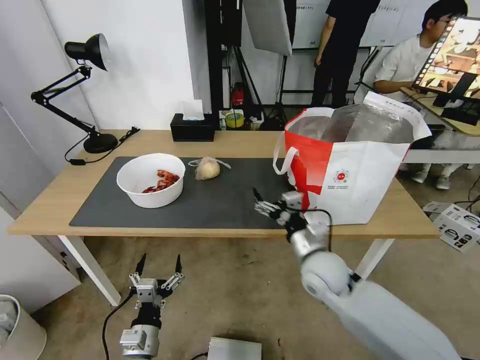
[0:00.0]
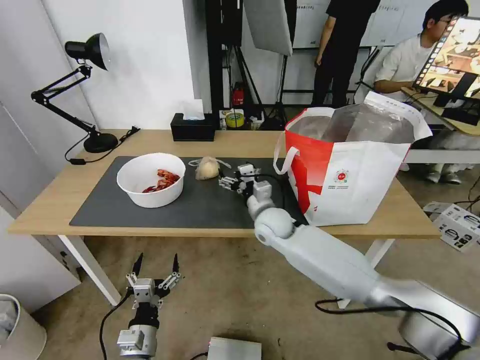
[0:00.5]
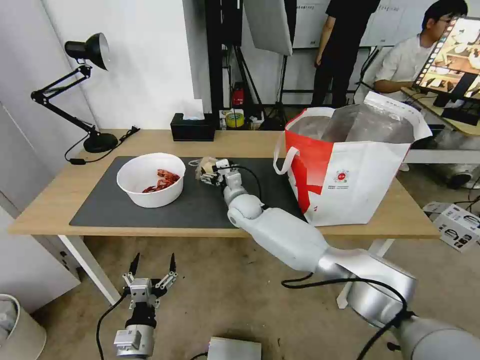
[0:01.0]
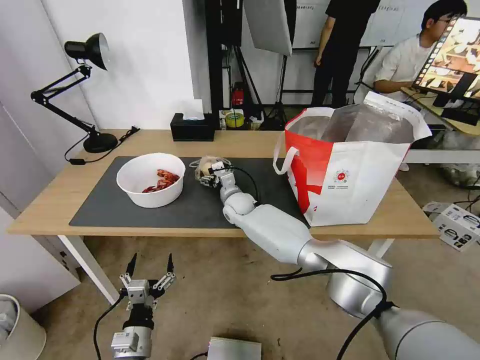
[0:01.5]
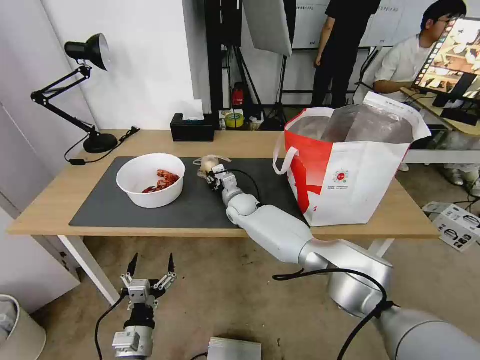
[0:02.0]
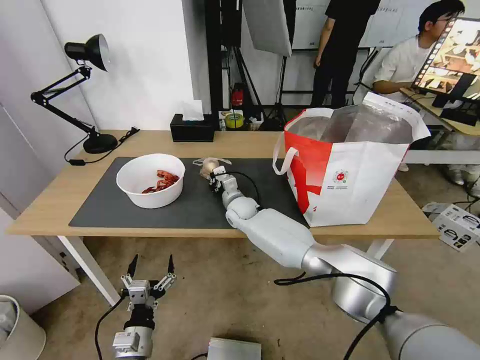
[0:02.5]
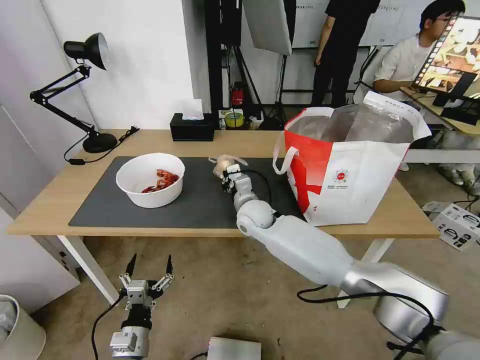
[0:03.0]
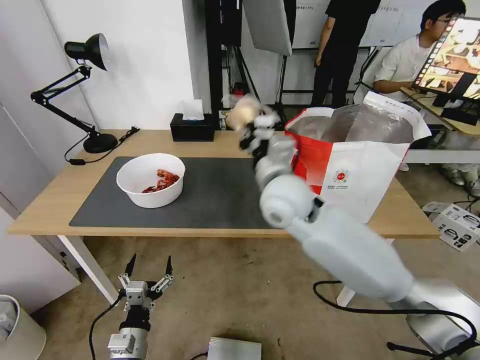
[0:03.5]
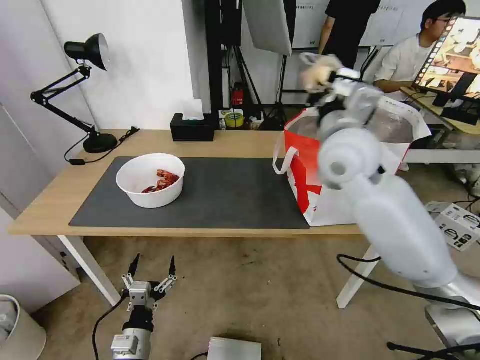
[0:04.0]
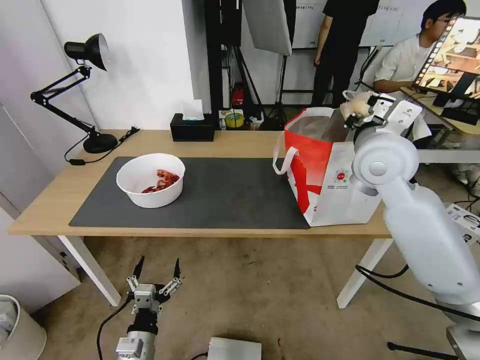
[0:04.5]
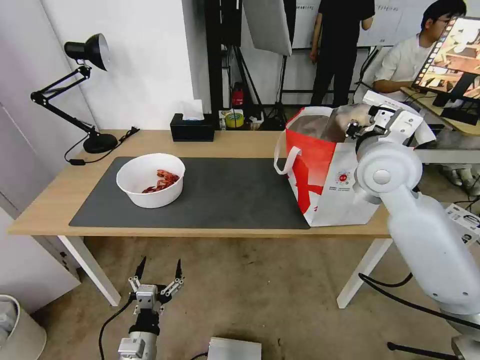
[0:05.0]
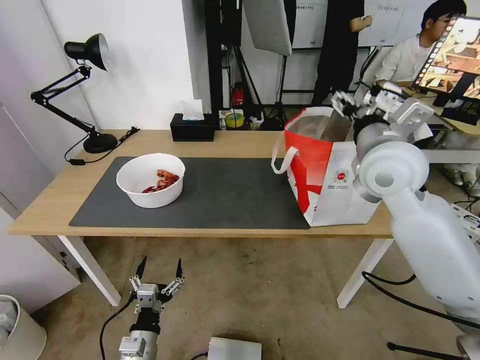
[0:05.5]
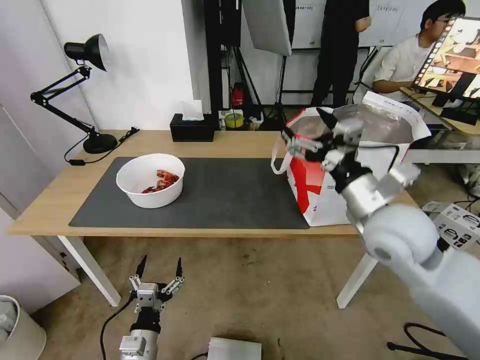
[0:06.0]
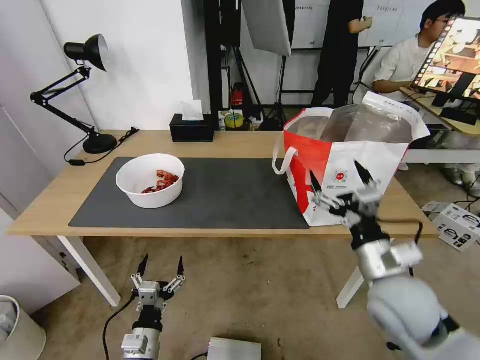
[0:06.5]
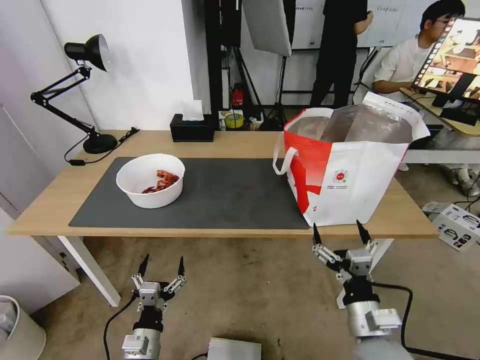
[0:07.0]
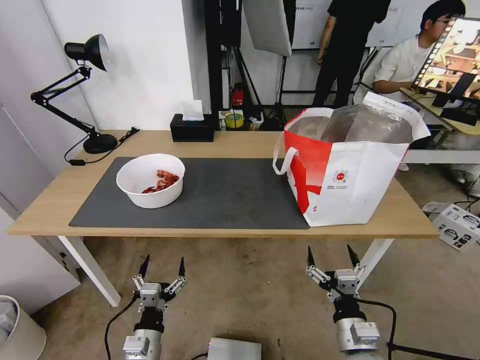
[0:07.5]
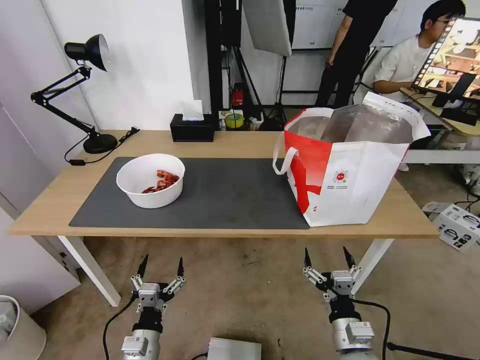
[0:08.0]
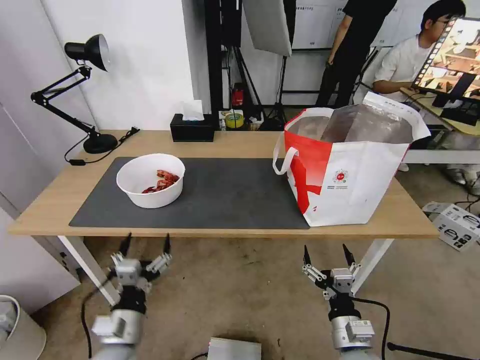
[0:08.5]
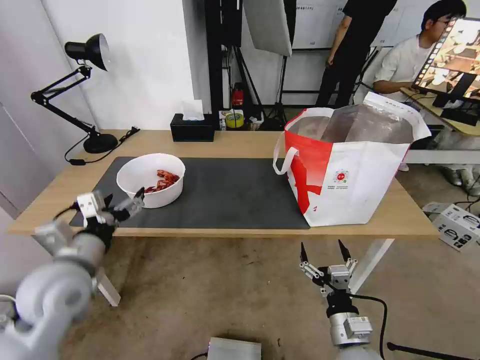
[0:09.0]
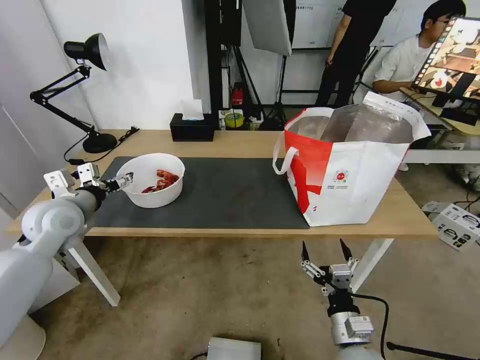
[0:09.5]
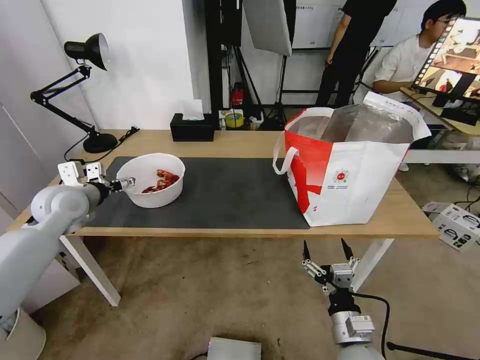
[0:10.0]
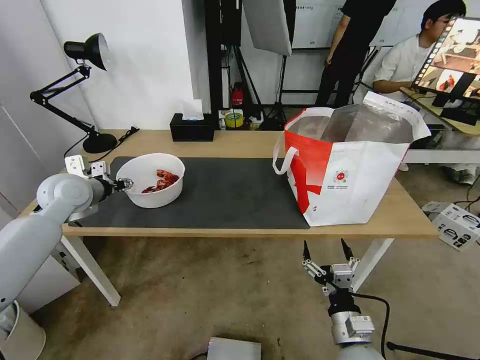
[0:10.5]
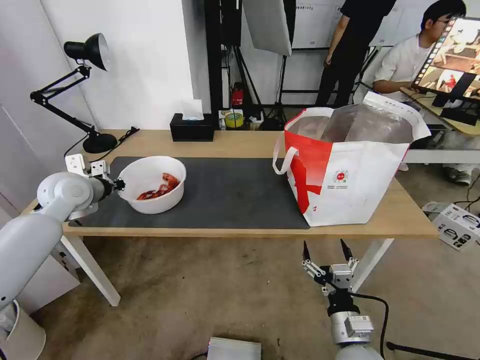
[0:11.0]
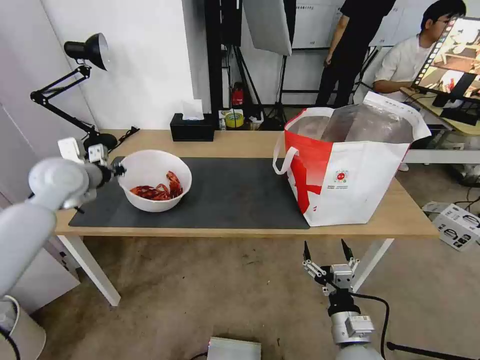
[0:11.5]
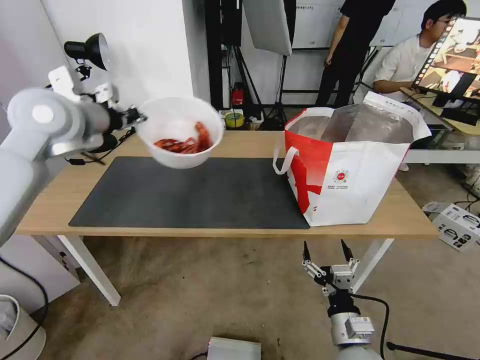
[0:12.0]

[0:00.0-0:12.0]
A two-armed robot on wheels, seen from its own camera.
Task of the whole recording: Pick up the trash from the table and place it into the takeout bag.
0:00.0 to 0:02.0: The right gripper moves forward and to the left, about 30 cm, and closes.
0:02.0 to 0:04.0: The right gripper travels upward, to the right and backward by approximately 40 cm, and closes its fingers.
0:04.0 to 0:06.0: The right gripper shifts some 15 cm backward, downward and to the right, and opens its fingers.
0:06.0 to 0:08.0: The right gripper is displaced downward and backward by some 30 cm.
0:08.0 to 0:10.0: The left gripper goes about 40 cm forward, upward and to the left.
0:10.0 to 0:12.0: The left gripper shifts approximately 20 cm upward and to the right, and closes its fingers.

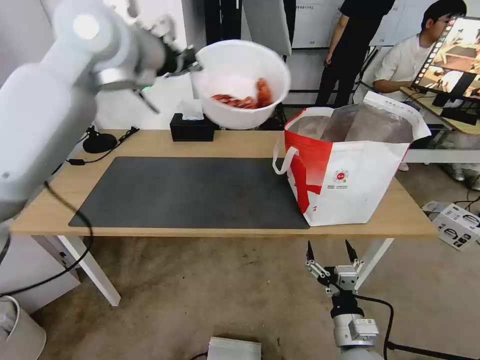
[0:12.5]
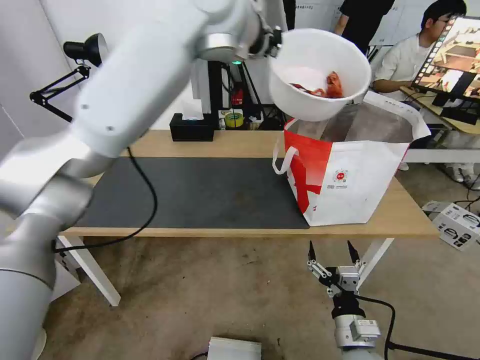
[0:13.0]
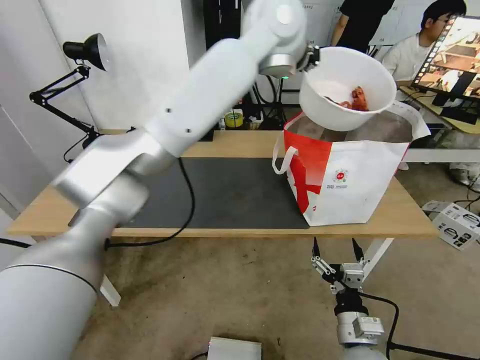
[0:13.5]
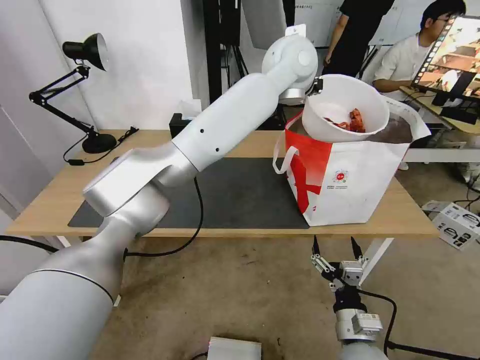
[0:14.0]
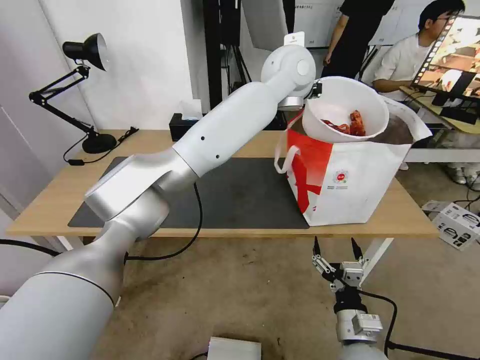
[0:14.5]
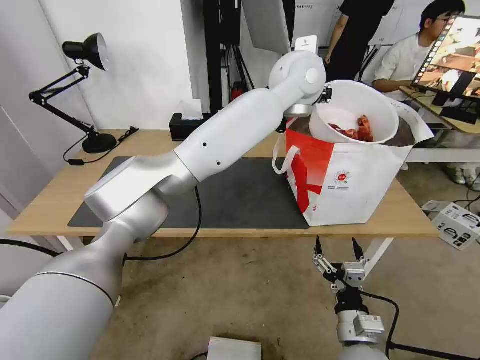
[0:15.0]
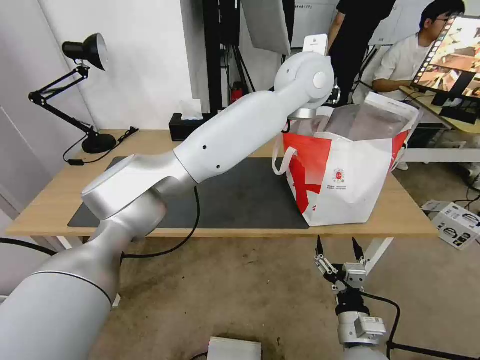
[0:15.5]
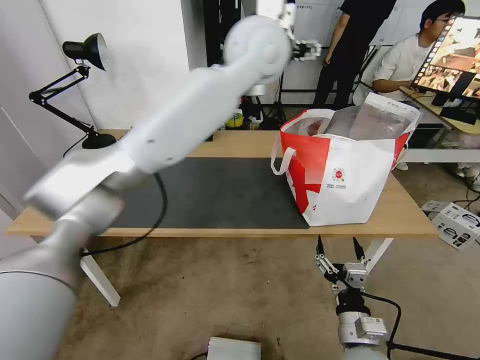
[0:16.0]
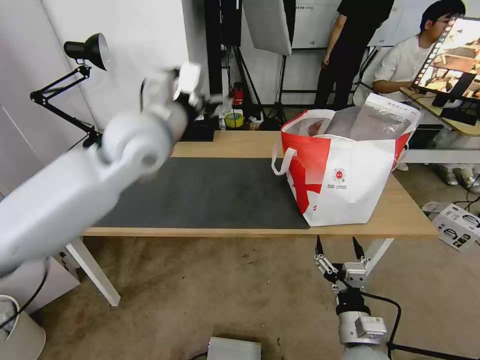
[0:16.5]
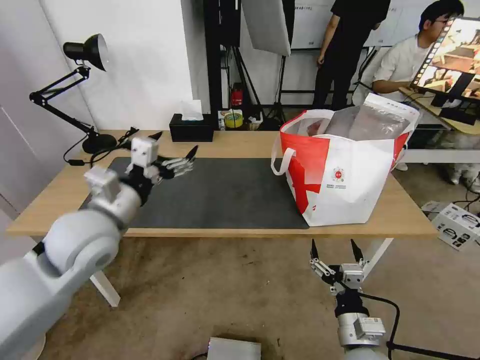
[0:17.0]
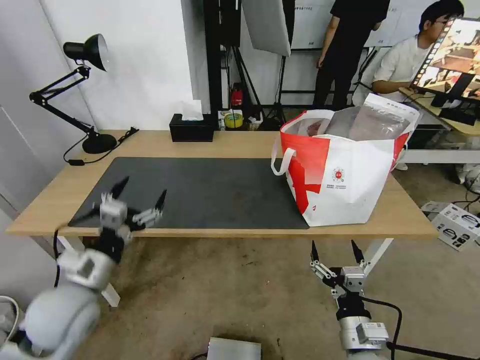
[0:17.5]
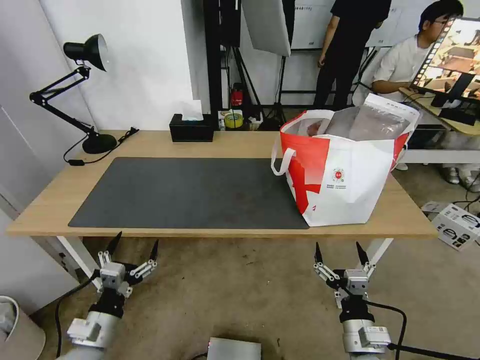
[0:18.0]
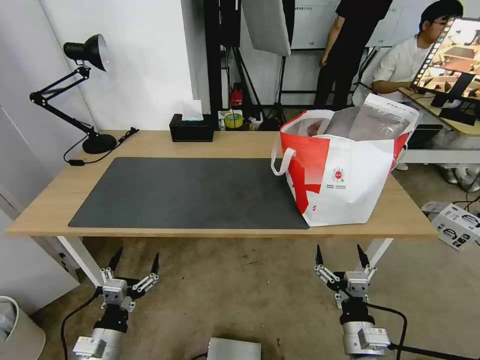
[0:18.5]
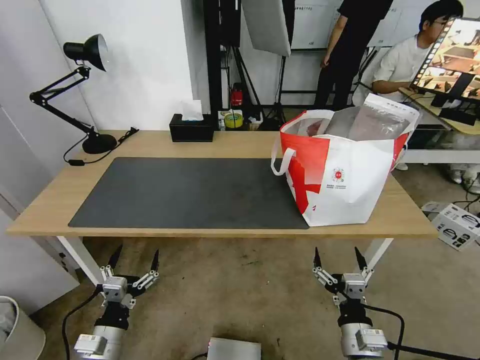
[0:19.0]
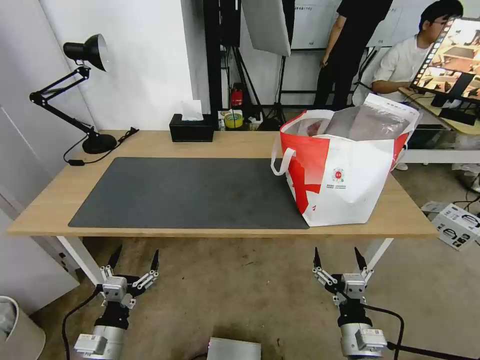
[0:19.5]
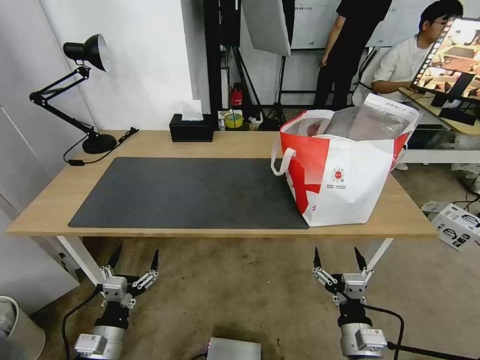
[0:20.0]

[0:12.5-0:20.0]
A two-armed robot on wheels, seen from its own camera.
Task of the whole recording: Pick up the trash from the table and place it into the takeout bag.
0:12.5 to 0:14.5: The left gripper shifts approximately 25 cm to the right.
0:14.5 to 0:16.5: The left gripper is displaced to the left and backward by some 30 cm, and opens.
0:16.5 to 0:18.0: The left gripper moves downward and backward, some 40 cm.
0:18.0 to 0:20.0: The grippers stay close to where they were, moving slightly.
